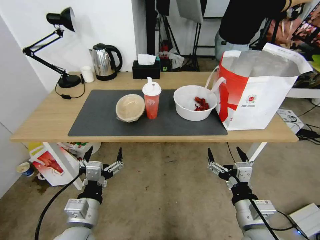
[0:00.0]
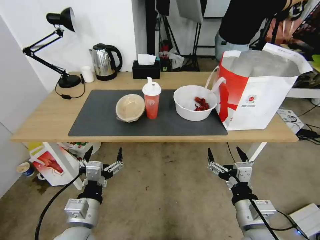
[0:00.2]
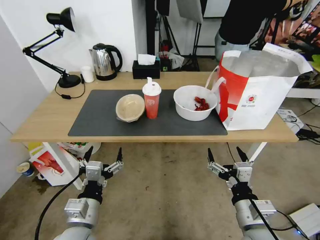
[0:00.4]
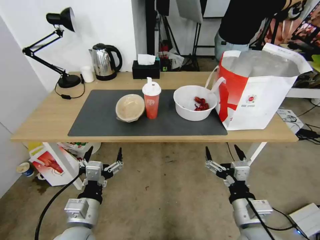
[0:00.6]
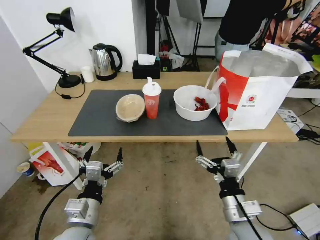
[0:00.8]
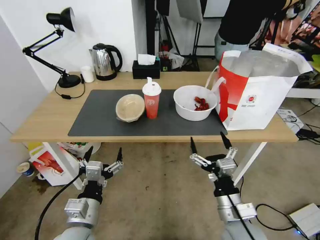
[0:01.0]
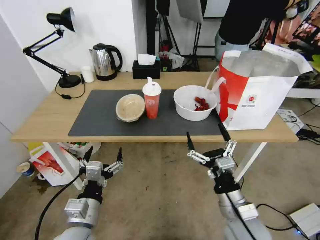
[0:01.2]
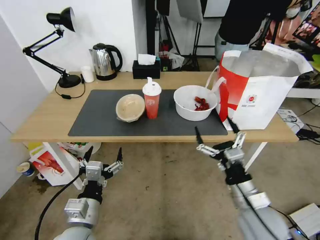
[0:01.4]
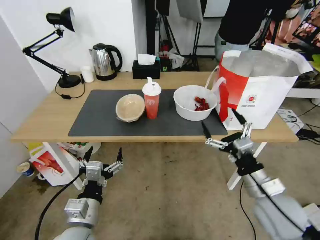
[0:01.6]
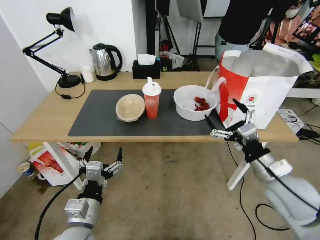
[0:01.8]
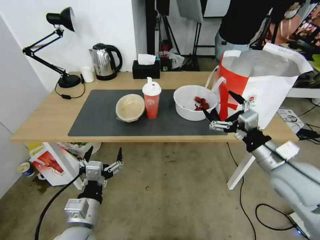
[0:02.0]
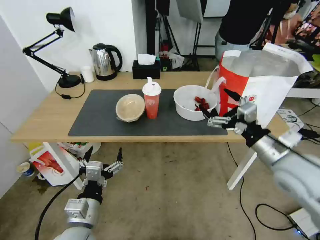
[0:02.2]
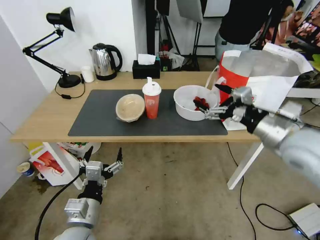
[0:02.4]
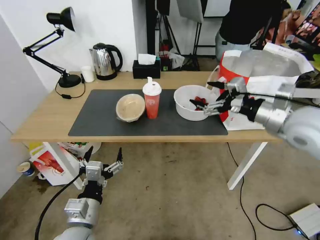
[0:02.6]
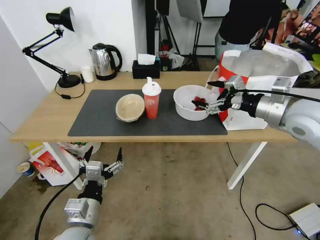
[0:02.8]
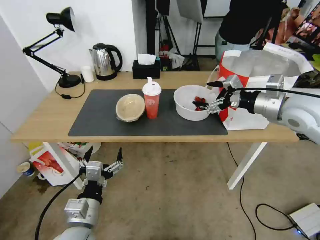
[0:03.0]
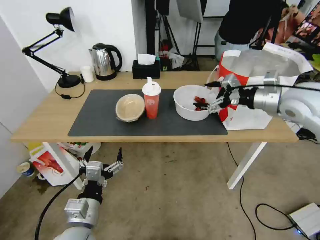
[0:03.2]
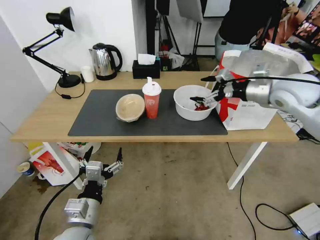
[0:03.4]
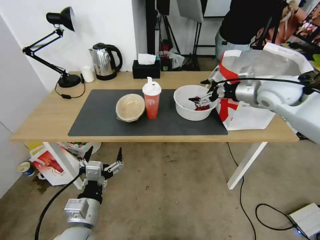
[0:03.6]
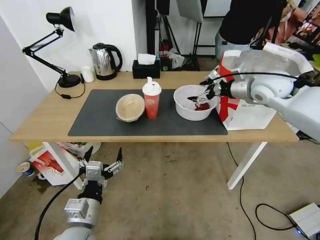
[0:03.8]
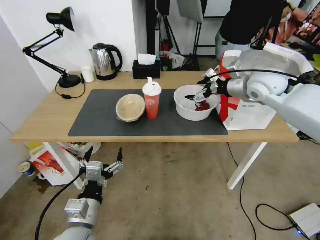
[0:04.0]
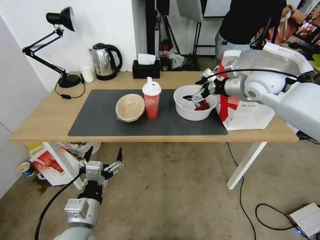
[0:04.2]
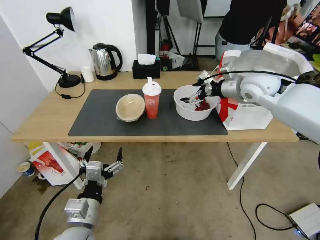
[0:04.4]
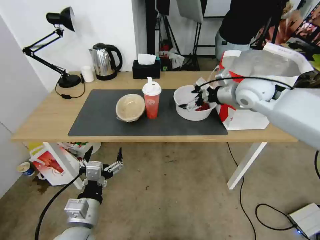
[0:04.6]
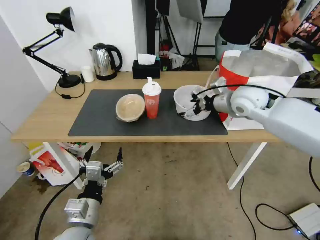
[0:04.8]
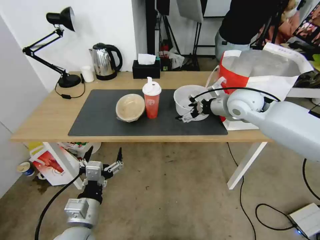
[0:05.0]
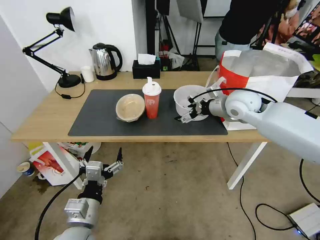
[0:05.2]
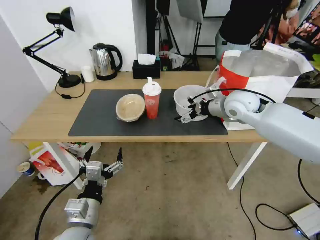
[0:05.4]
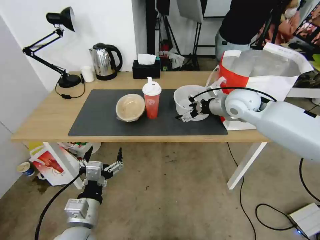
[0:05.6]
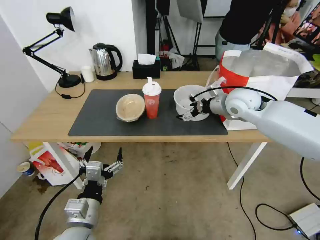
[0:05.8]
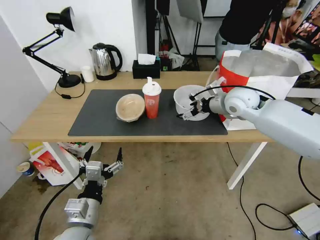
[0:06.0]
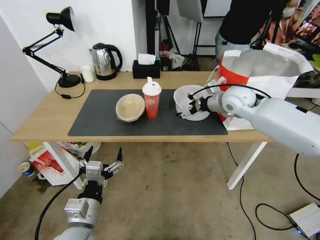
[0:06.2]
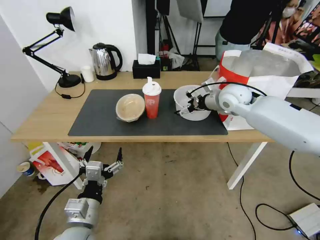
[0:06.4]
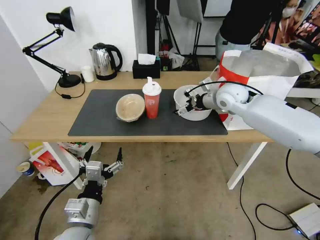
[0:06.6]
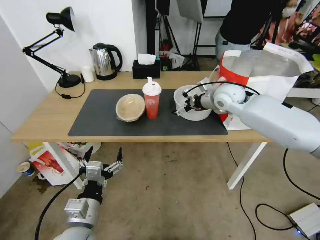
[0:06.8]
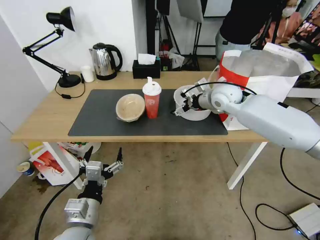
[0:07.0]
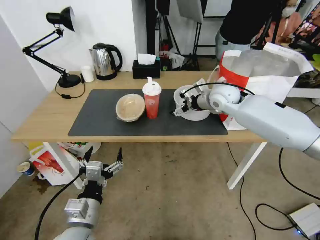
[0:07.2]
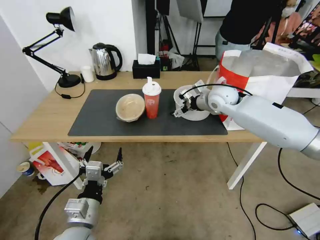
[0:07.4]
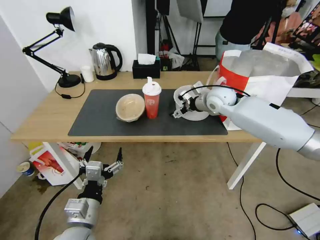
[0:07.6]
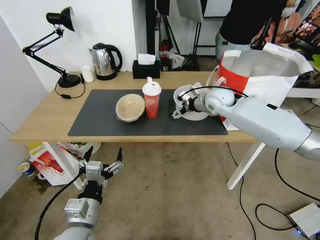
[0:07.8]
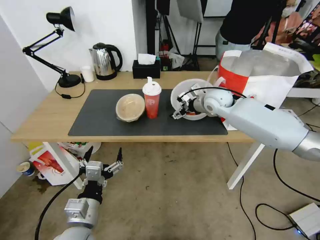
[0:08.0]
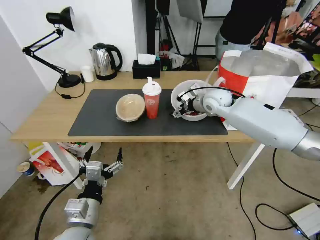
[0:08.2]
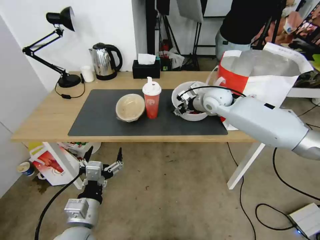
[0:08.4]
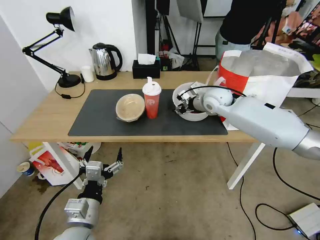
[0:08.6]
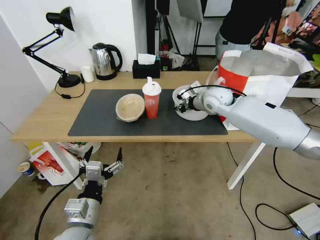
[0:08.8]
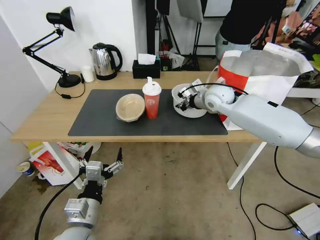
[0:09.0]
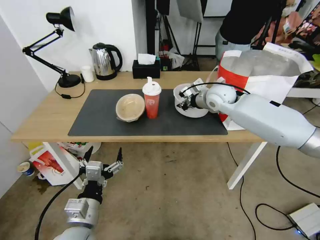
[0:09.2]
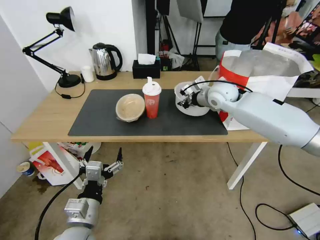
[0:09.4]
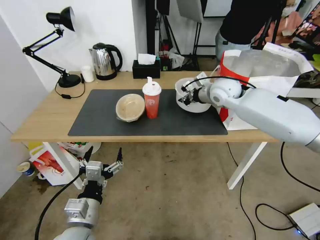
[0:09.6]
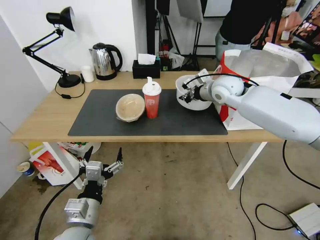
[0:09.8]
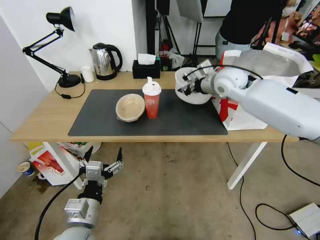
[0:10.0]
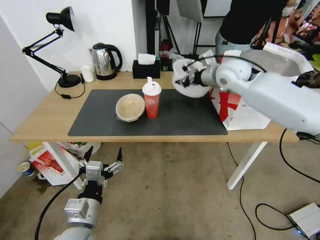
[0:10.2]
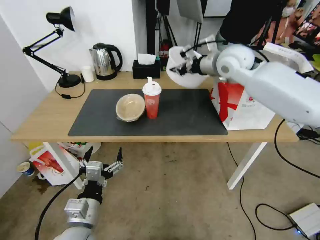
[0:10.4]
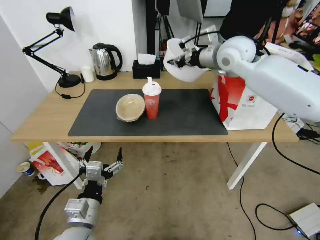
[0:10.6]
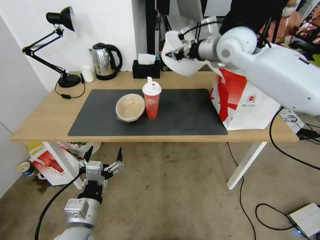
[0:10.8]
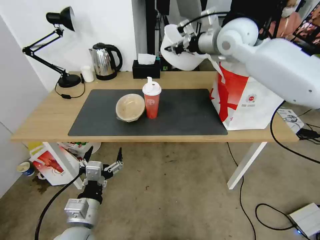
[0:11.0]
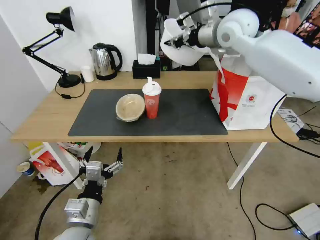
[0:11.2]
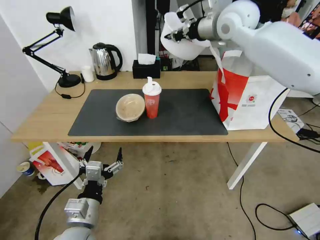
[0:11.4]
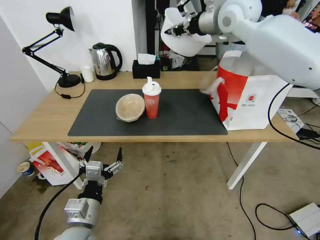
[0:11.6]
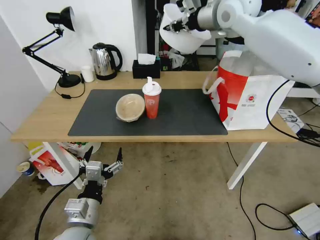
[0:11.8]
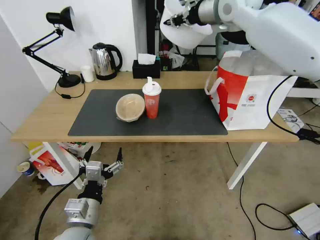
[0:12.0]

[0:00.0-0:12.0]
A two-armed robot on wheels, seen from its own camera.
Task of the whole recording: Pick up the trash from the table and place it into the takeout bag.
0:01.6 to 0:03.0: The right gripper moves upward and forward, some 25 cm.
0:03.0 to 0:04.4: The right gripper heads forward and to the left, covering approximately 15 cm.
0:04.4 to 0:06.0: The right gripper travels downward by about 5 cm.
0:06.0 to 0:07.6: The right gripper ends up about 5 cm from where it was.
0:07.6 to 0:09.0: The right gripper closes its fingers.
0:09.0 to 0:10.4: The right gripper heads upward, covering approximately 15 cm.
0:10.4 to 0:12.0: The right gripper moves upward, approximately 15 cm.

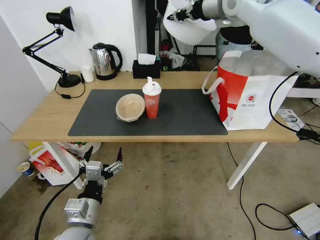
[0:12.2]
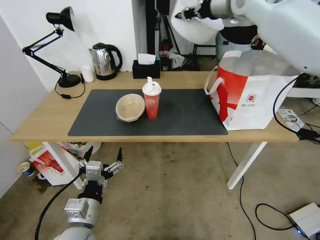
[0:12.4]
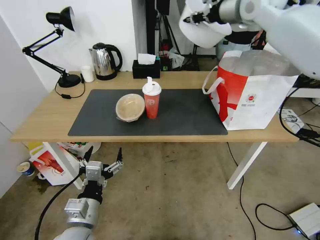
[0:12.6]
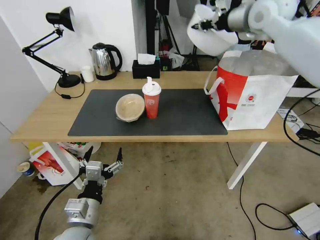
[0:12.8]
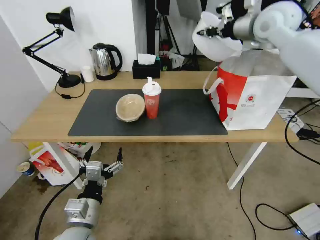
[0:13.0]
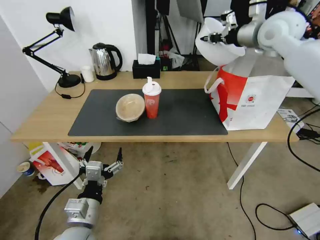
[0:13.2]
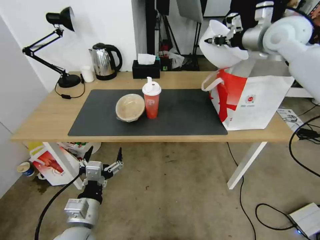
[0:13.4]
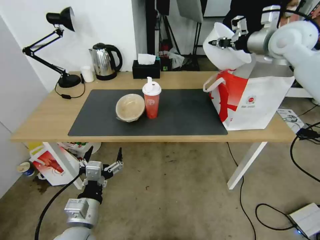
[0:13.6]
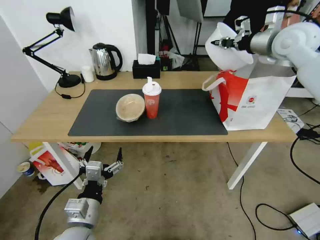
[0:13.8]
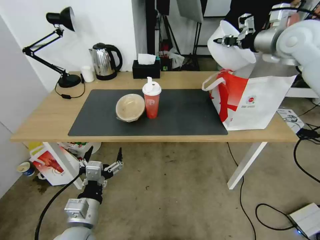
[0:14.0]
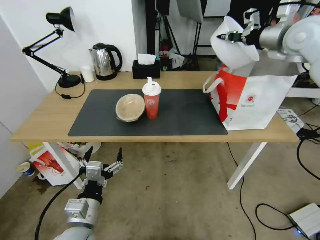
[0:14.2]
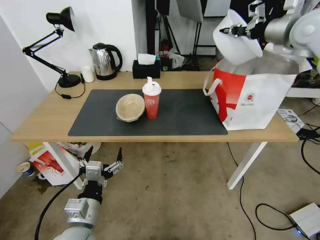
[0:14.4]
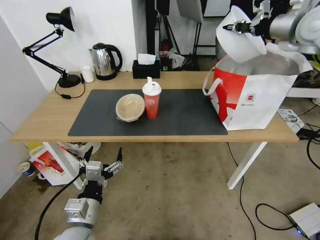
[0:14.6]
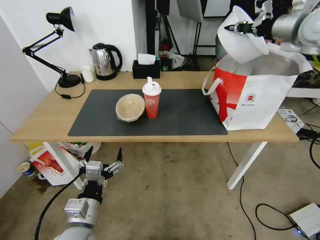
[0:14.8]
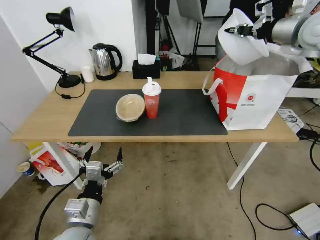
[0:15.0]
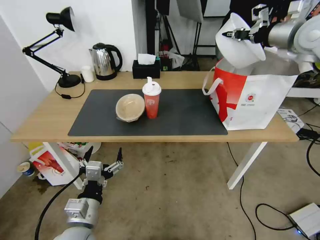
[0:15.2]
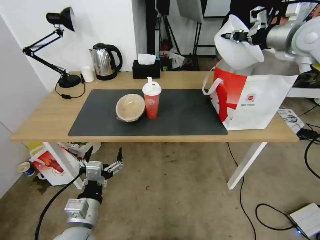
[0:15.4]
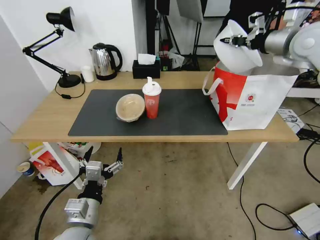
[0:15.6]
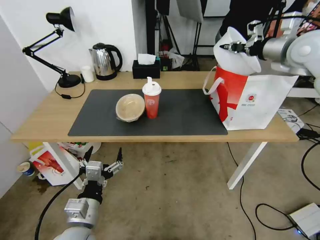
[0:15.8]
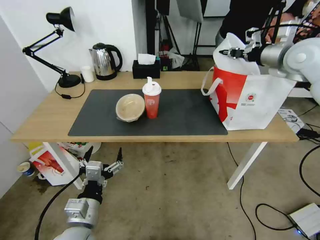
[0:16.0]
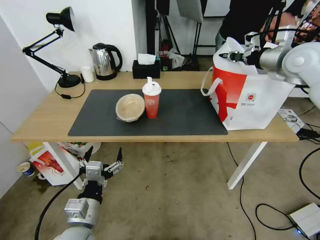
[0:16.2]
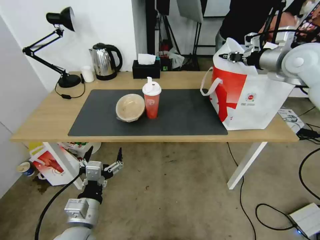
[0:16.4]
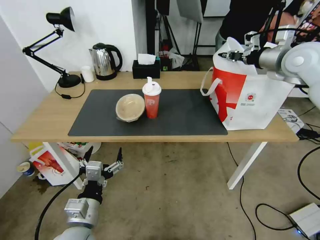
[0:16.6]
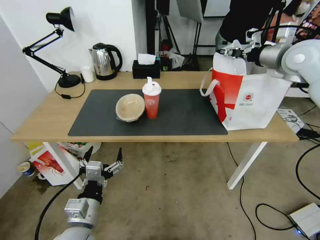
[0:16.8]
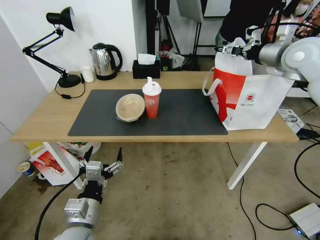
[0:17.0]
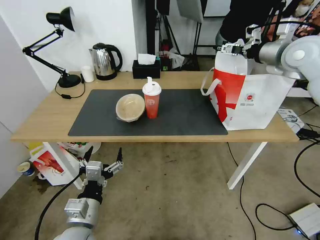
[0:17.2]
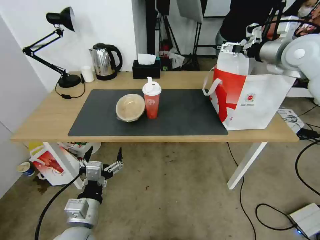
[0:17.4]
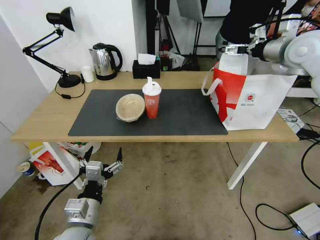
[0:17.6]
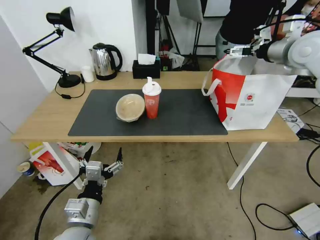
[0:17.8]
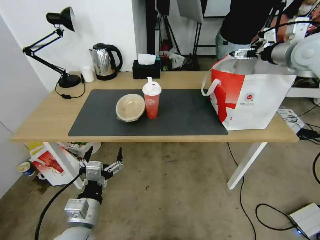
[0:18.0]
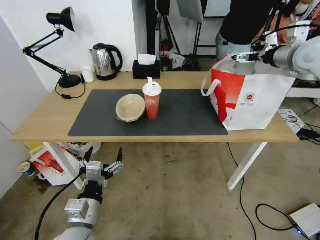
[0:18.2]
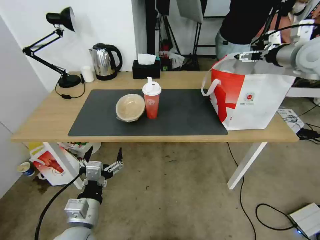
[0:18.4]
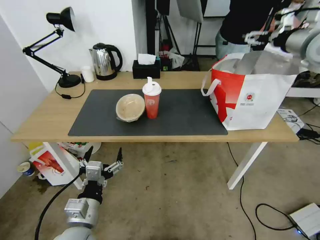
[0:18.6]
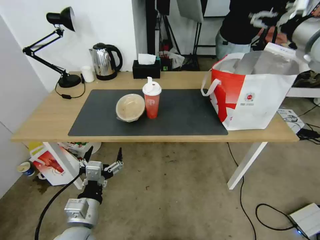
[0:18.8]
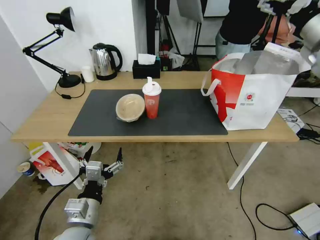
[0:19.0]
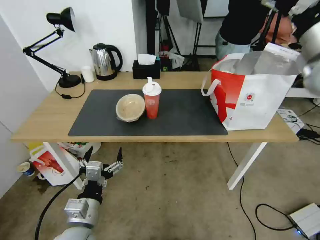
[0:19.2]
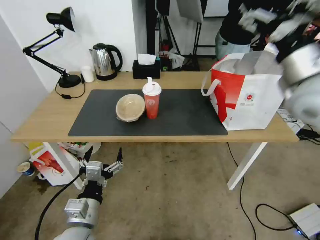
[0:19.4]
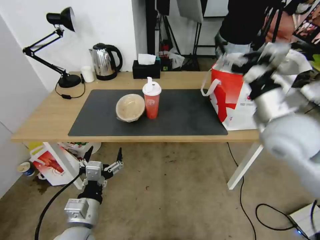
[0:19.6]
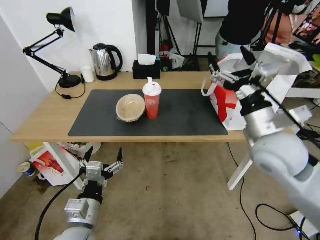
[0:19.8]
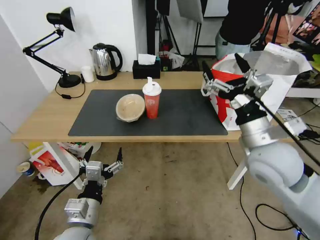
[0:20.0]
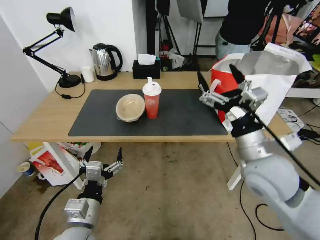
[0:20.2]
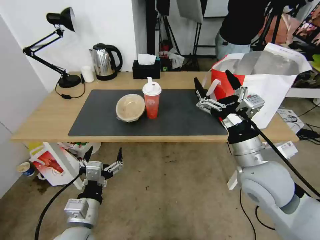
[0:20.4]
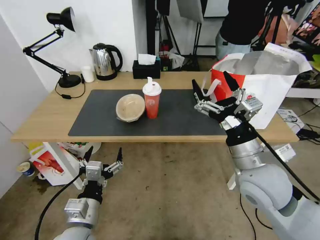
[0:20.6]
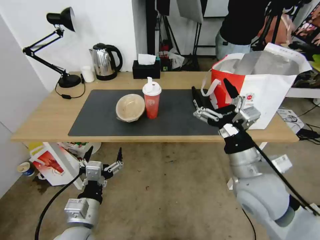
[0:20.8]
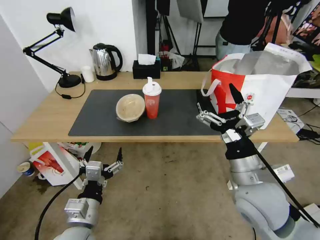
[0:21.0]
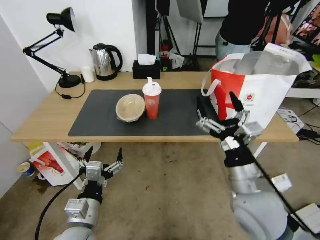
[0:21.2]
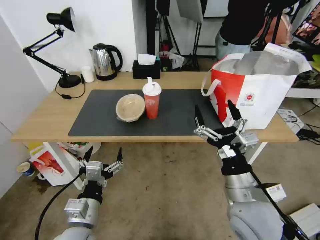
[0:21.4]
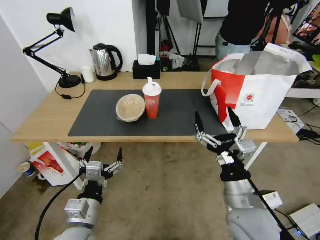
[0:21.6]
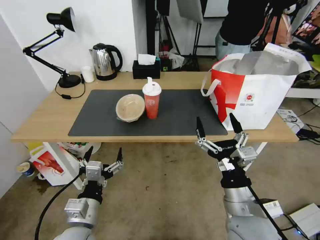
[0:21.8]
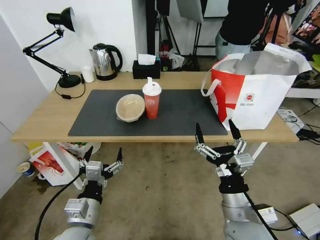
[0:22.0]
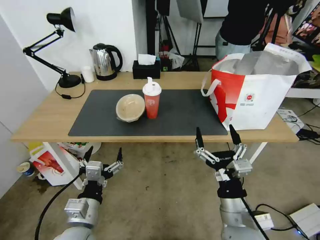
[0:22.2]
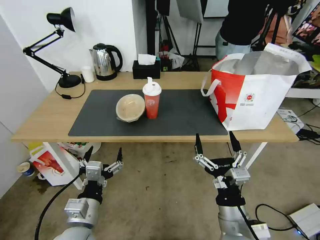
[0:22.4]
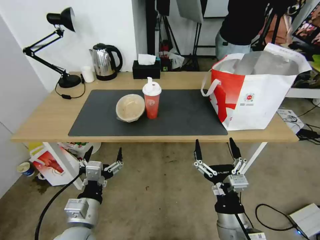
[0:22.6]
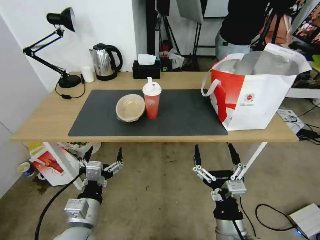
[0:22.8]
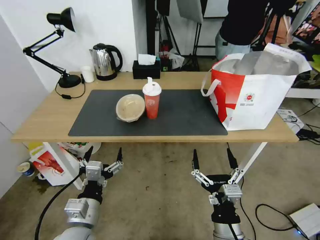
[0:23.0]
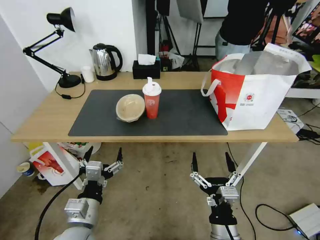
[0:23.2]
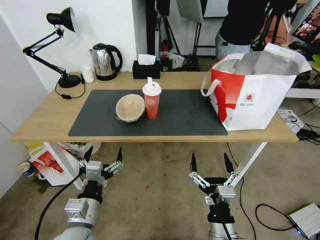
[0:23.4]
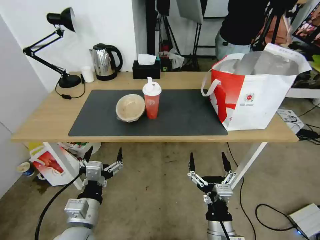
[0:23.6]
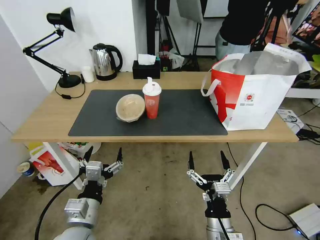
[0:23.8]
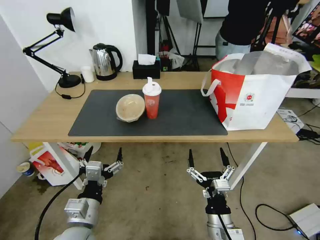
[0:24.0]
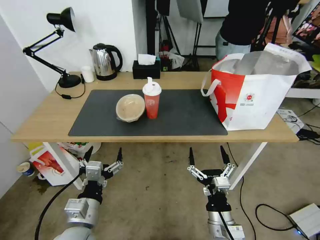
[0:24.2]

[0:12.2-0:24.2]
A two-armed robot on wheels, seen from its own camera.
Task of the whole recording: Pick up the trash from the table and place it into the takeout bag.
0:12.2 to 0:13.8: The right gripper shifts about 20 cm to the right and downward.
0:13.8 to 0:15.2: The grippers stay close to where they were, moving slightly.
0:15.2 to 0:16.6: The right gripper shifts some 5 cm downward.
0:16.6 to 0:18.2: The right gripper opens its fingers.
0:18.2 to 0:19.8: The right gripper heads backward, downward and to the left, covering approximately 30 cm.
0:19.8 to 0:21.2: The right gripper is displaced backward and downward by some 15 cm.
0:21.2 to 0:22.6: The right gripper heads downward and backward, covering about 10 cm.
0:22.6 to 0:24.2: The right gripper shifts about 5 cm downward.
